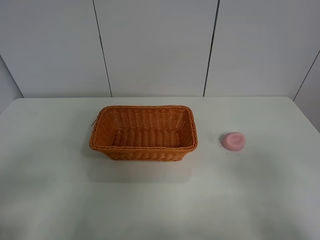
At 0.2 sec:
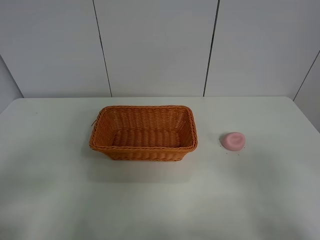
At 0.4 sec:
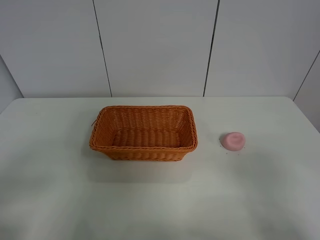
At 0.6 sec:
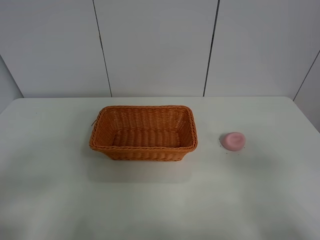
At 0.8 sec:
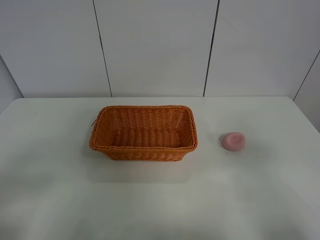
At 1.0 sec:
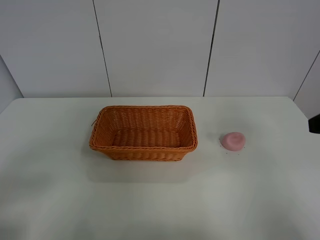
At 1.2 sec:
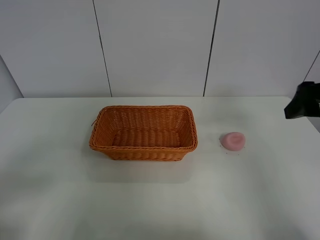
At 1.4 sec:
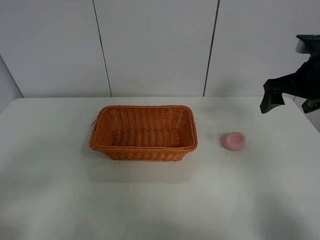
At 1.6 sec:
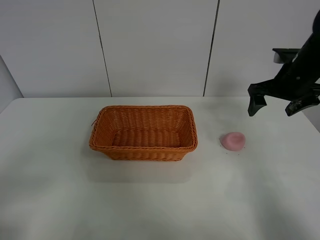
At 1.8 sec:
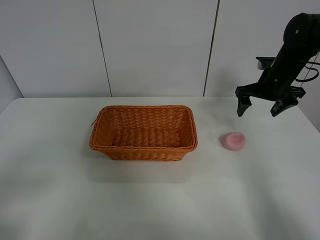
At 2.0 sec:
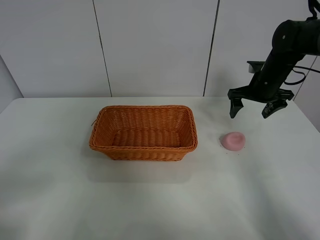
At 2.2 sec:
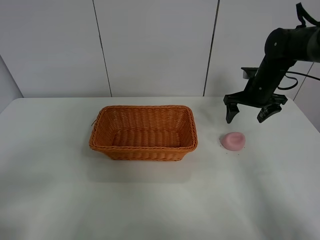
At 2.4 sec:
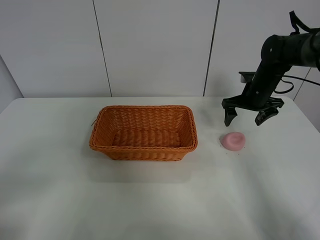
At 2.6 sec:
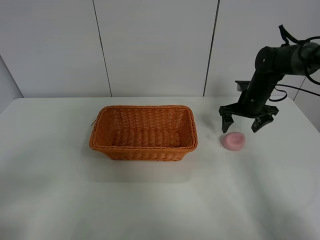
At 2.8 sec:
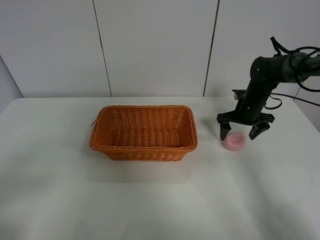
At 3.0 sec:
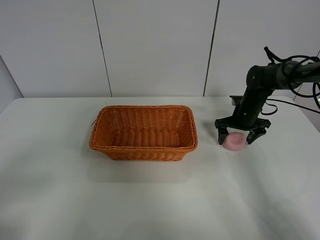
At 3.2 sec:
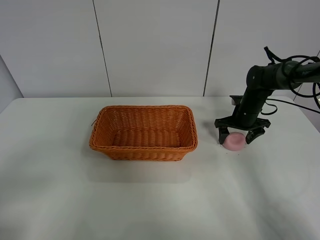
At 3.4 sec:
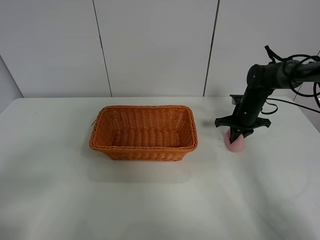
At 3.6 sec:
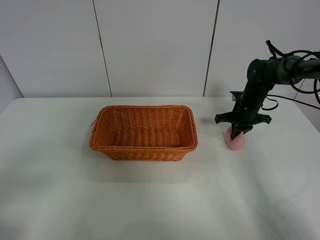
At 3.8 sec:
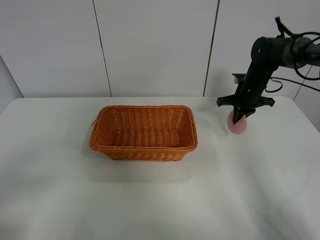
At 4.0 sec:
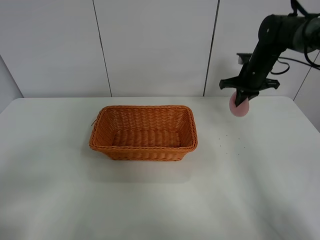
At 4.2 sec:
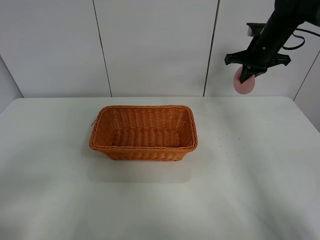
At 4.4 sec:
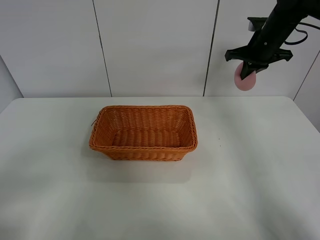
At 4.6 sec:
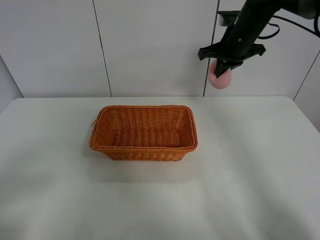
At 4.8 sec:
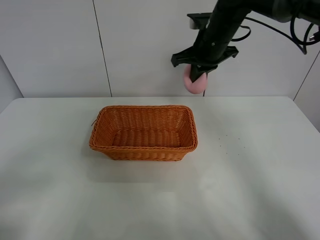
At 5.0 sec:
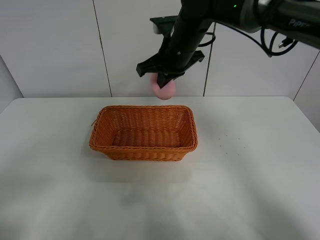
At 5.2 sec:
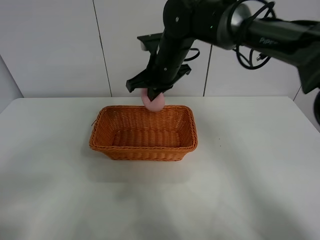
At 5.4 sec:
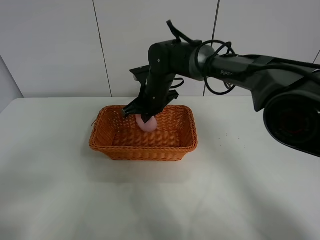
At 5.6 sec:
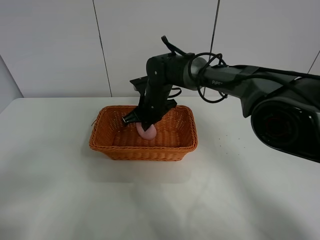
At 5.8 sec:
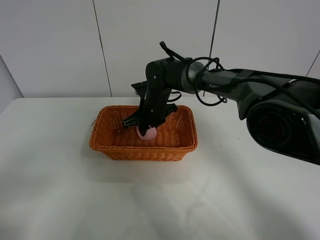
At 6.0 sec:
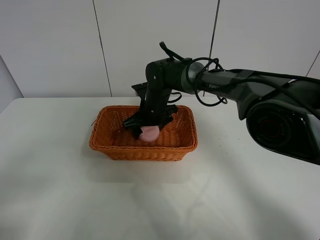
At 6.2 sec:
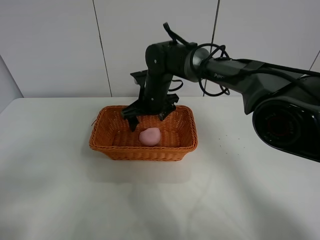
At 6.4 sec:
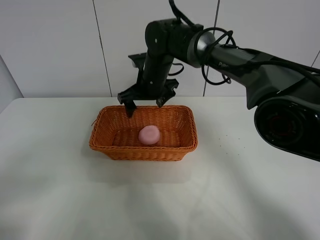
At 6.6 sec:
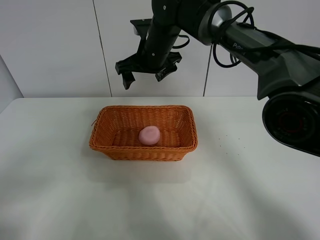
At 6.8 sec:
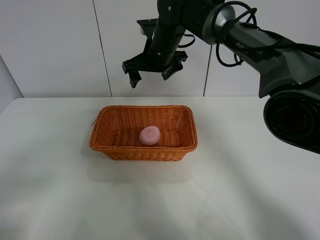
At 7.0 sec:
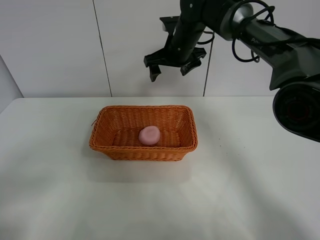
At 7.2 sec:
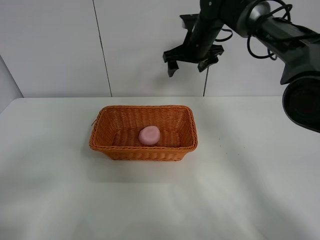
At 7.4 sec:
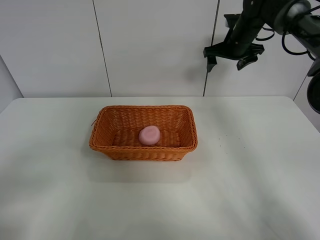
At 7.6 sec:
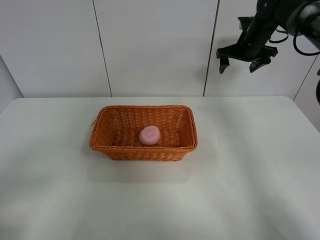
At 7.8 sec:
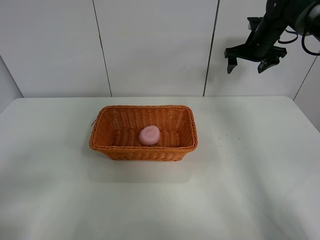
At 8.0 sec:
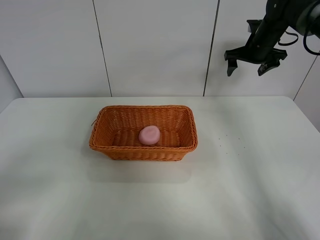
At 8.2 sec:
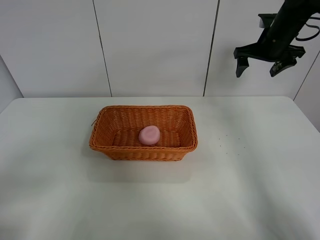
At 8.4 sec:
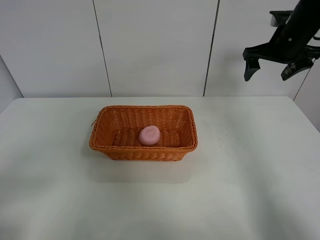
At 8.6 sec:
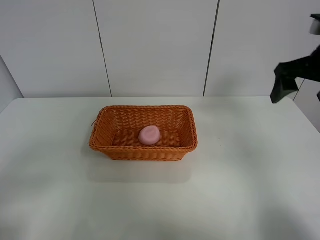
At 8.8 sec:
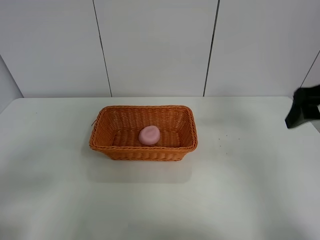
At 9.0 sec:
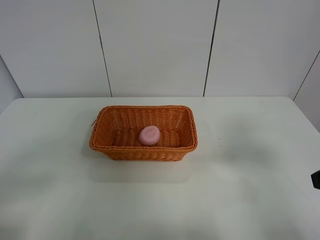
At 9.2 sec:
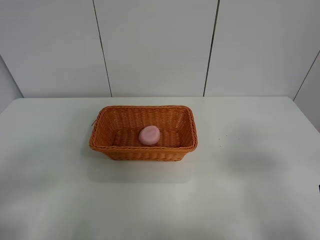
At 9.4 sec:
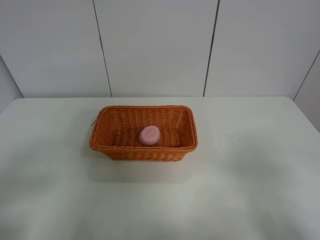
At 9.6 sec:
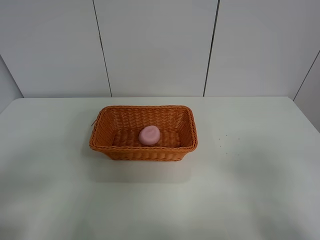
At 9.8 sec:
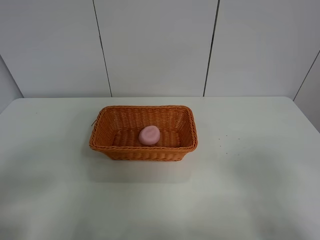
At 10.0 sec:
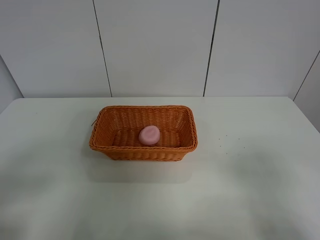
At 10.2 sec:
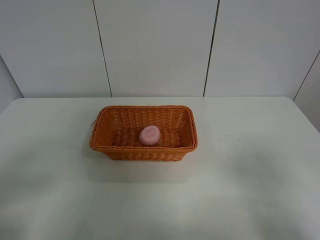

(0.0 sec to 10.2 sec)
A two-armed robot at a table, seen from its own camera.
Step, 0.0 sec - 3.6 sec: Grasp the peach with right gripper.
Step, 3.8 sec - 6.4 sec: Place the peach in the basket with right gripper.
0.0 sec - 1.4 sec: The right gripper goes approximately 30 cm forward.
1.4 sec - 3.0 sec: The right gripper goes roughly 25 cm downward and forward.
3.0 sec - 4.4 sec: The right gripper goes about 20 cm upward, and closes.
4.4 sec - 5.8 sec: The right gripper heads to the left and downward, covering roughly 30 cm, and opens its fingers.
5.8 sec - 7.2 sec: The right gripper is displaced upward, to the right and forward by some 20 cm, and opens up.
7.2 sec - 8.8 sec: The right gripper heads backward and to the right, covering approximately 35 cm.
8.8 sec - 10.2 sec: The right gripper heads backward, covering about 20 cm.
